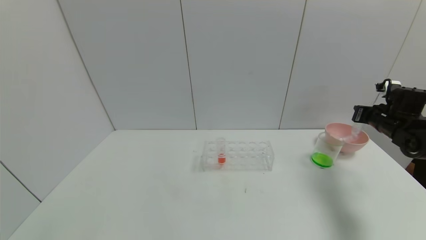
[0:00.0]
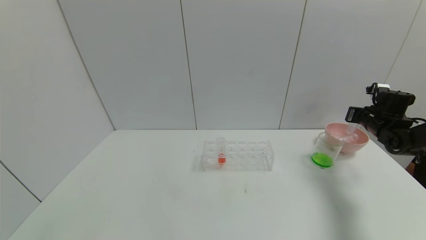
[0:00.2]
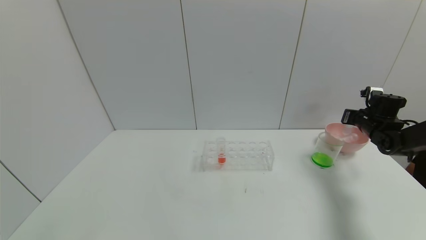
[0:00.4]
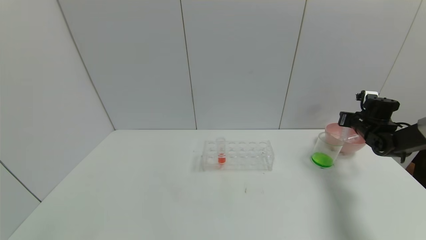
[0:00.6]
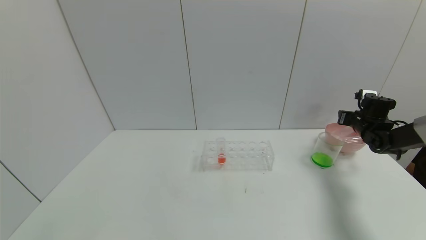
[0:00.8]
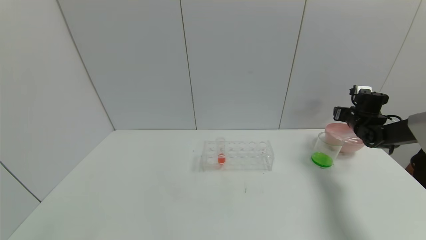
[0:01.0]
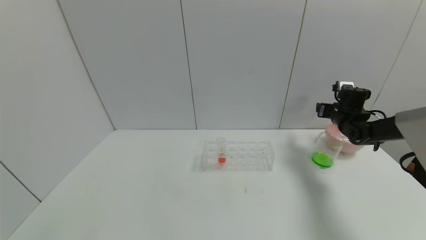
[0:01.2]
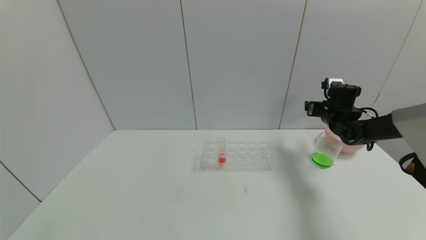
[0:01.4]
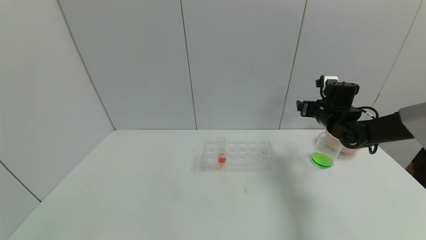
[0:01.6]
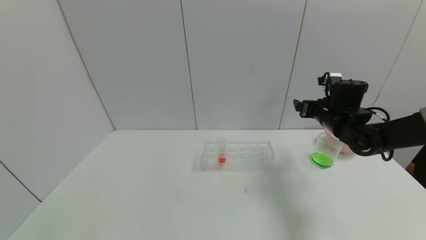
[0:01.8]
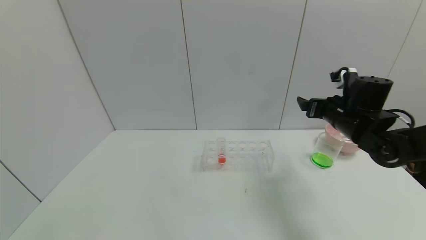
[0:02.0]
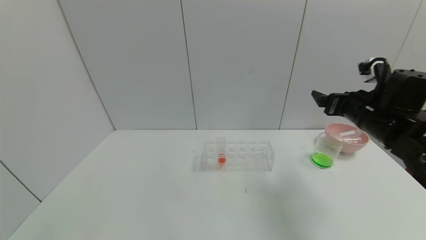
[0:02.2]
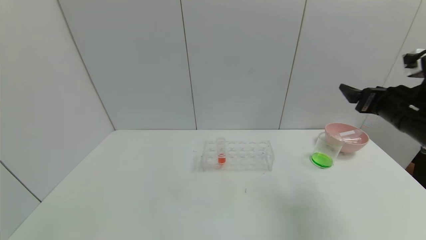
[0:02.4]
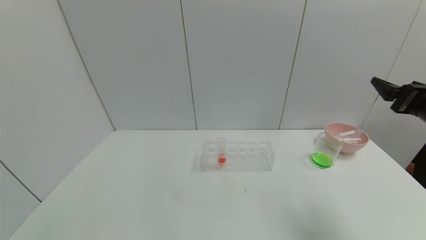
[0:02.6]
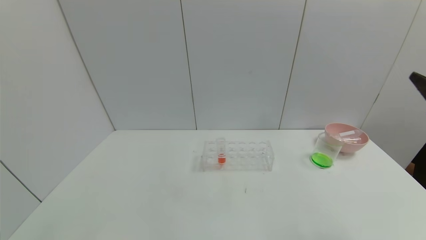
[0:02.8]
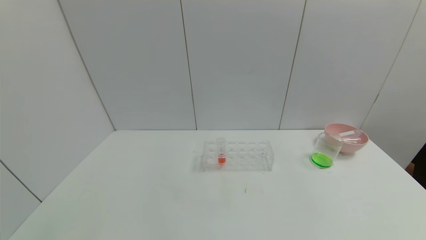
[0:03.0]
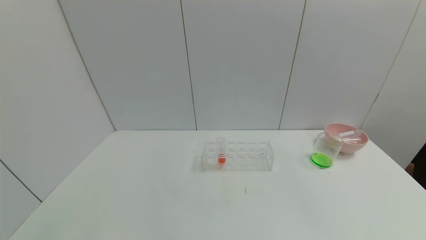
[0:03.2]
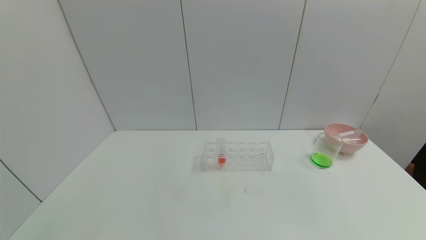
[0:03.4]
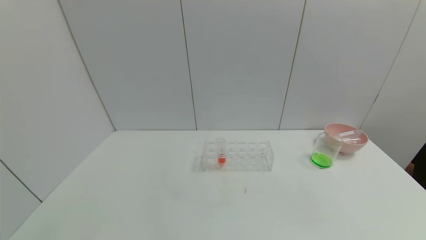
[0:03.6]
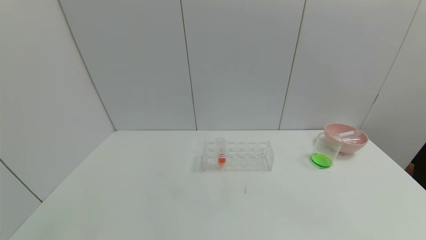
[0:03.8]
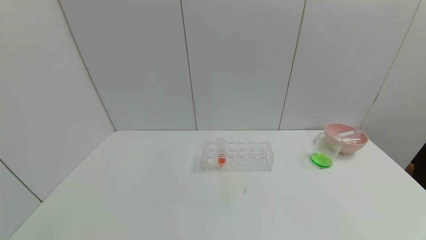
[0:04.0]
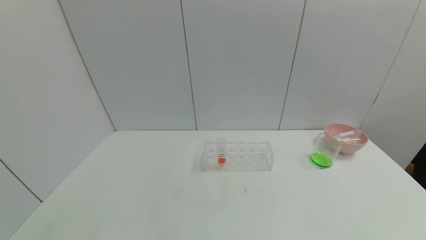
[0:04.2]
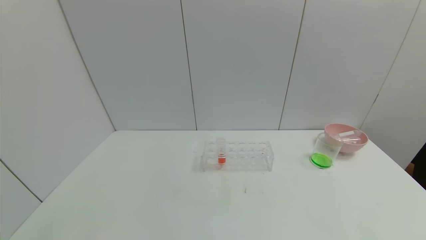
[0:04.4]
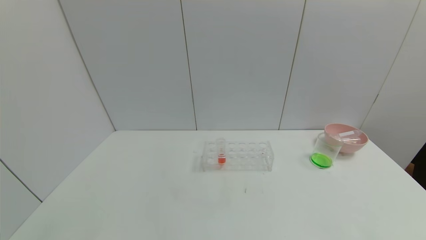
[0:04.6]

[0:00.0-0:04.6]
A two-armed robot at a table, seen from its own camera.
Task of the whole recording: pick up the test tube with yellow pigment and the test tube with blue pigment by grippers and pour them into the beaker.
0:00.0 to 0:01.6: The right gripper goes some 15 cm to the left, and opens its fingers.
0:01.6 to 0:03.0: The right gripper travels backward by about 35 cm.
